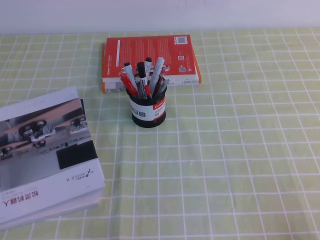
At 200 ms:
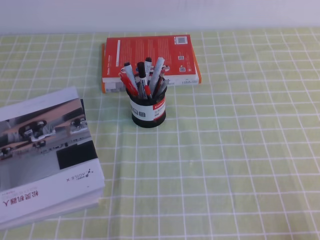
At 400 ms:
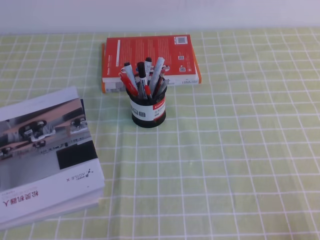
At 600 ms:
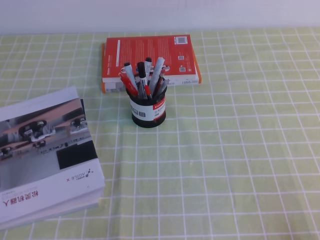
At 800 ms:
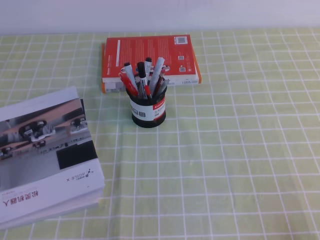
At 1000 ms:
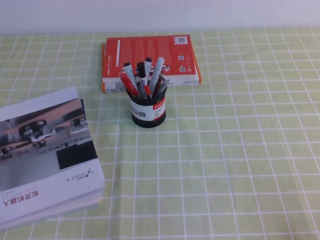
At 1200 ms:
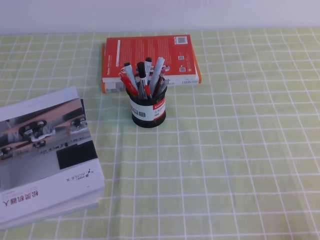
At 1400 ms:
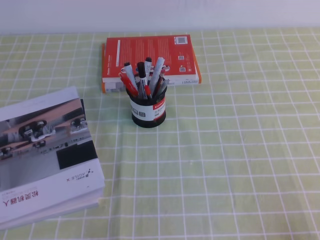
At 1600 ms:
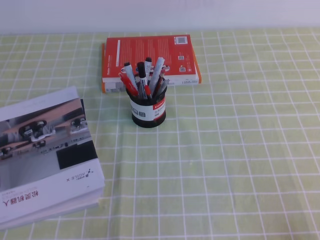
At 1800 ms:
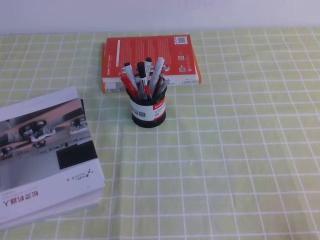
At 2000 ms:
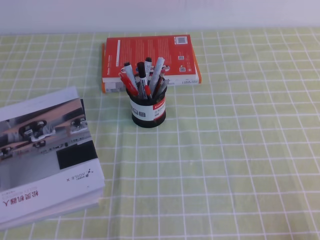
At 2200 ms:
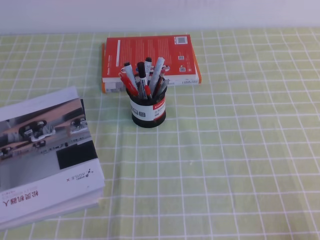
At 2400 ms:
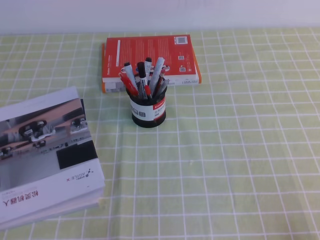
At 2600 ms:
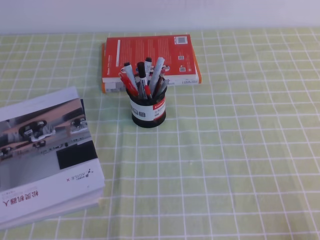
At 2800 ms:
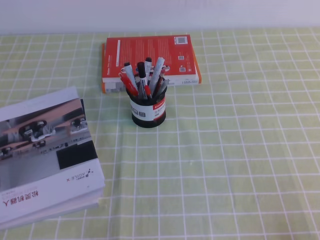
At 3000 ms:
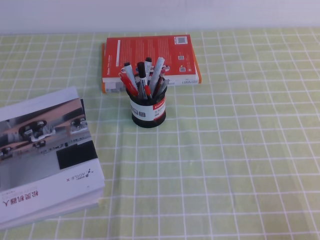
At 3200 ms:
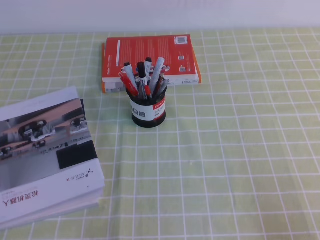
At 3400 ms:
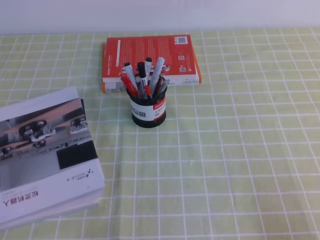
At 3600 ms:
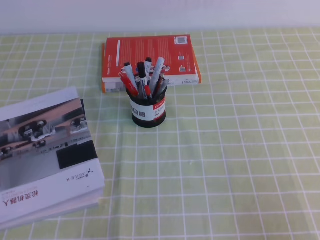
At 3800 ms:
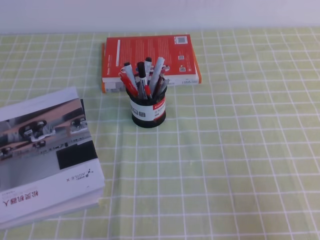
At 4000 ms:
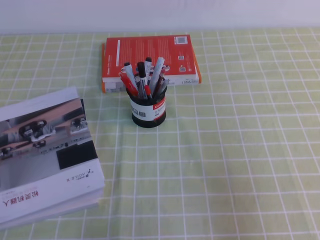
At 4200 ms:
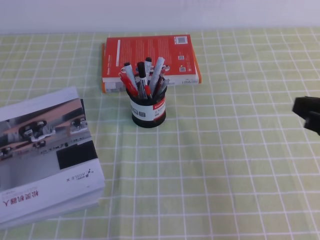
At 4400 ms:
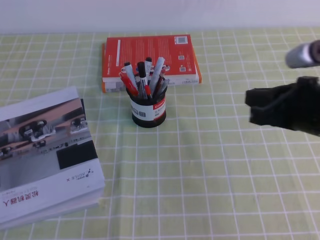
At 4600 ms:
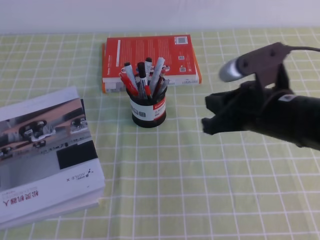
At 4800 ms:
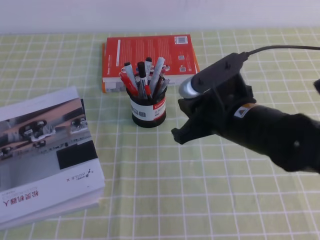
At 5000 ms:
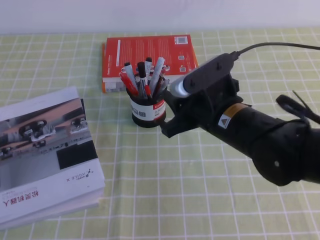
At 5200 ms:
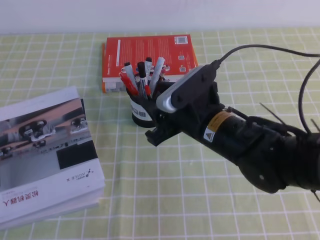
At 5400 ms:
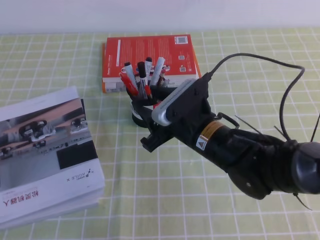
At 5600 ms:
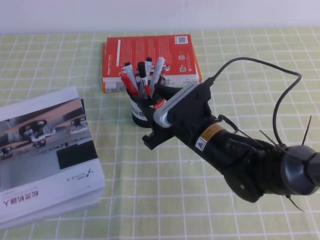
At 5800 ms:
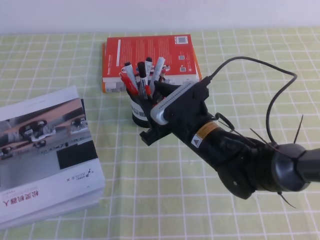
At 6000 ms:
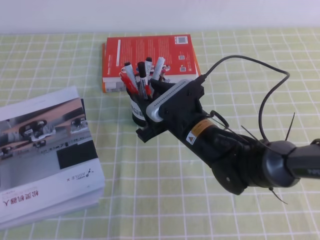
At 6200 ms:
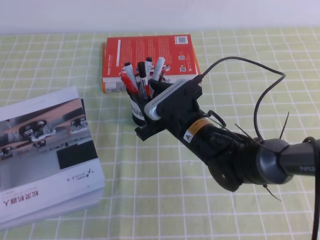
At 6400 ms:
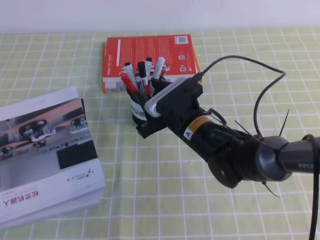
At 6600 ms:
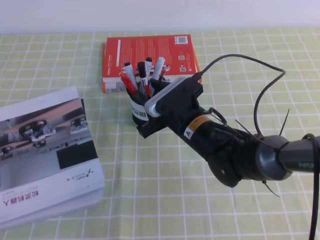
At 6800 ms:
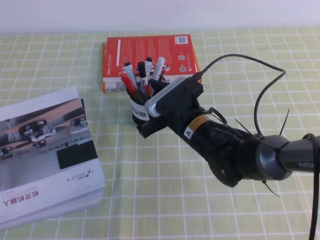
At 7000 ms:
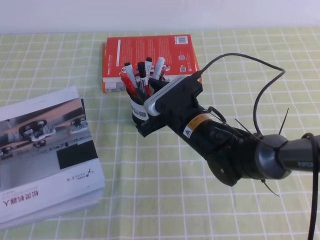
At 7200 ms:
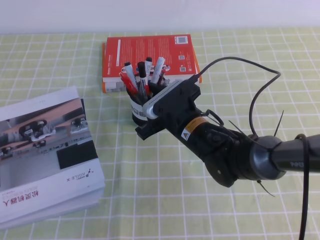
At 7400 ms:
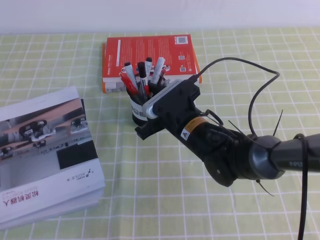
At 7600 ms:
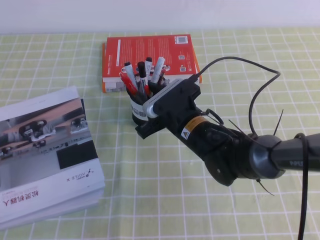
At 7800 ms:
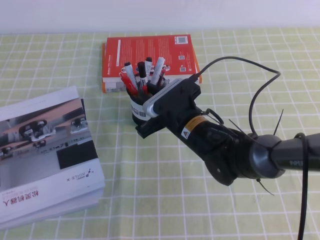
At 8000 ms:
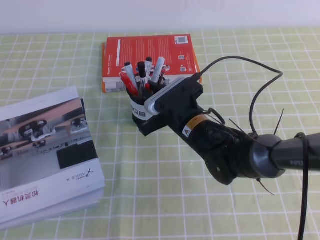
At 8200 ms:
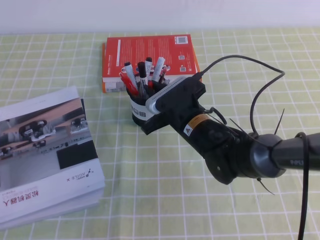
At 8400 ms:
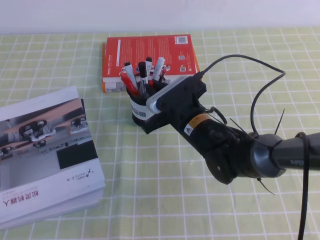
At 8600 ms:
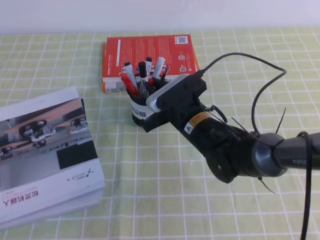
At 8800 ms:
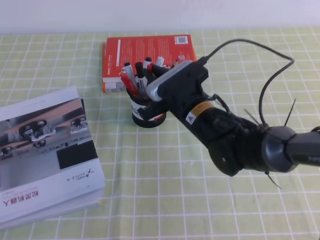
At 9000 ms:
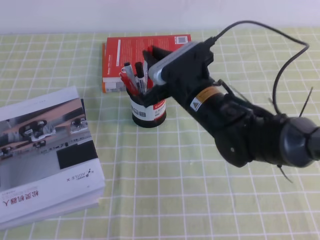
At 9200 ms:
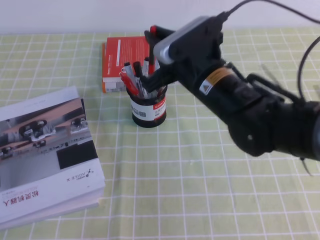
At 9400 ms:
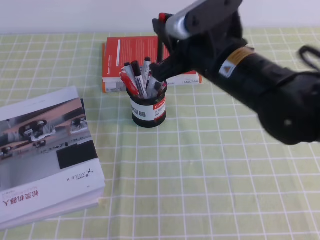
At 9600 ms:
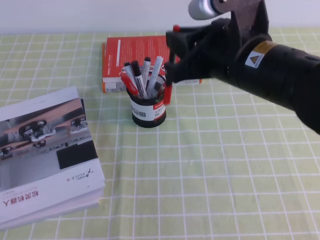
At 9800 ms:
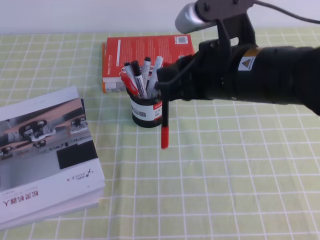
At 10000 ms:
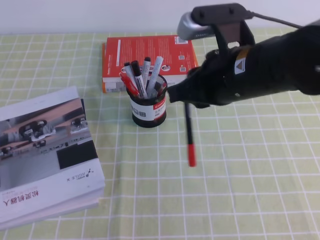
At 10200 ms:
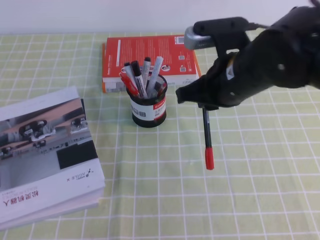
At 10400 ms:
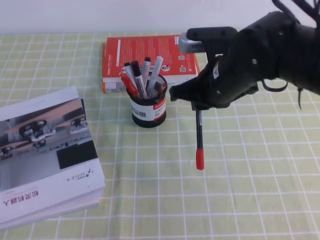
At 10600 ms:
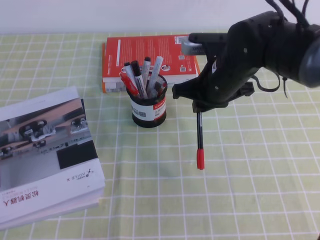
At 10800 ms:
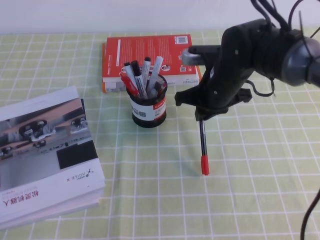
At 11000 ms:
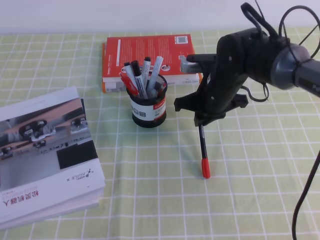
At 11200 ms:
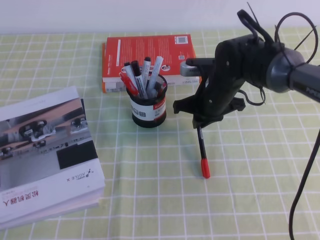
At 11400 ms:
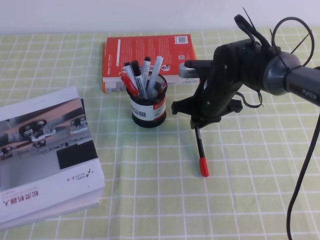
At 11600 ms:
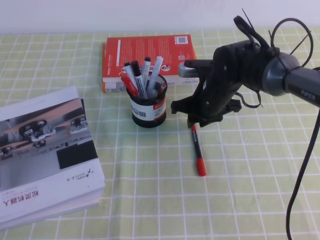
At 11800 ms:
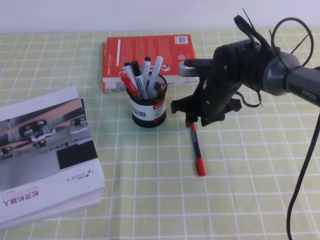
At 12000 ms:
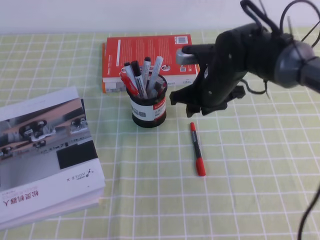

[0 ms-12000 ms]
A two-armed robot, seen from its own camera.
0 ms to 1600 ms: The two grippers keep their place.
3000 ms to 4400 ms: The right gripper shifts approximately 25 cm forward, upward and to the left.
4400 ms to 6000 ms: The right gripper is displaced to the left, downward and forward by approximately 20 cm, and opens.
6000 ms to 7600 ms: The right gripper closes.
7600 ms to 9000 ms: The right gripper heads upward, covering approximately 5 cm, and closes up.
9000 ms to 10400 ms: The right gripper moves upward and to the right, approximately 5 cm.
10400 ms to 12000 ms: The right gripper goes some 10 cm downward and forward, and opens.

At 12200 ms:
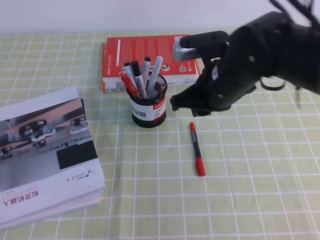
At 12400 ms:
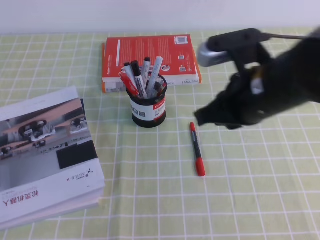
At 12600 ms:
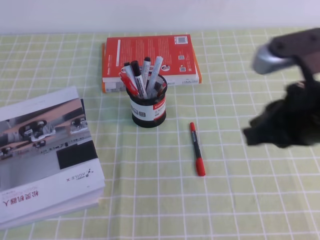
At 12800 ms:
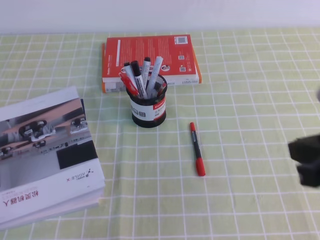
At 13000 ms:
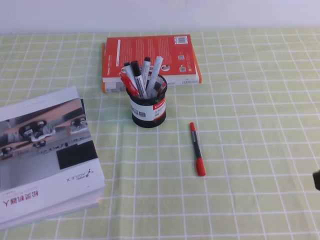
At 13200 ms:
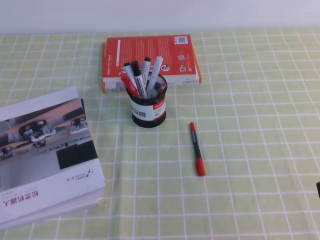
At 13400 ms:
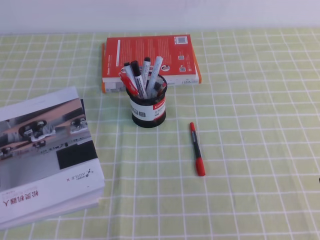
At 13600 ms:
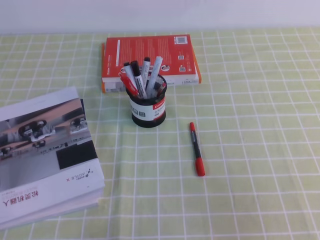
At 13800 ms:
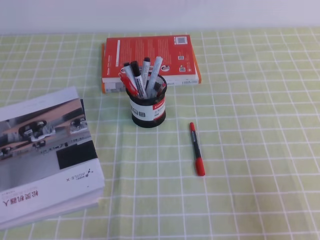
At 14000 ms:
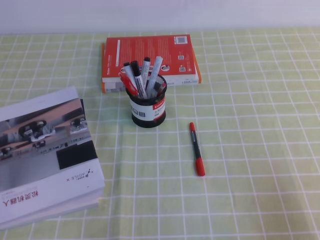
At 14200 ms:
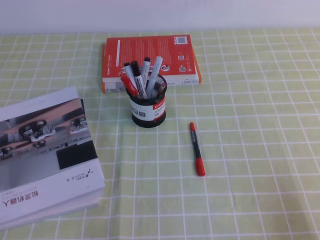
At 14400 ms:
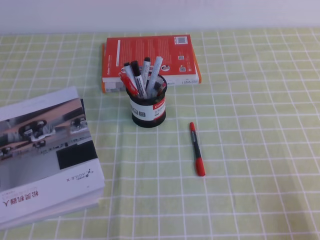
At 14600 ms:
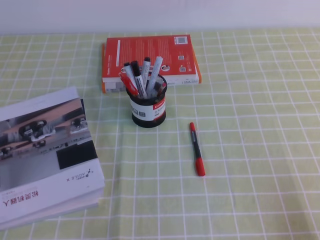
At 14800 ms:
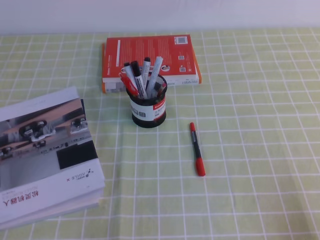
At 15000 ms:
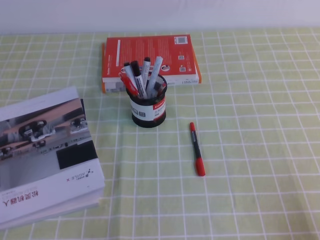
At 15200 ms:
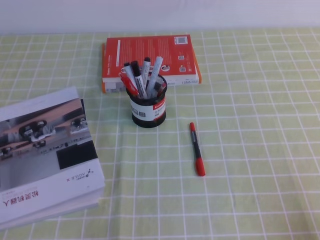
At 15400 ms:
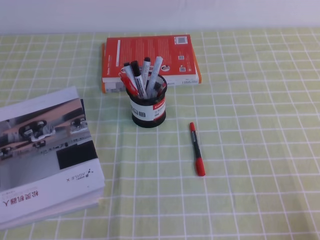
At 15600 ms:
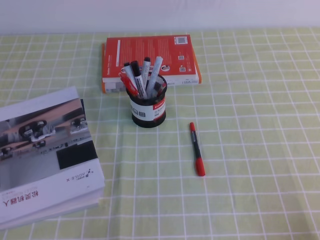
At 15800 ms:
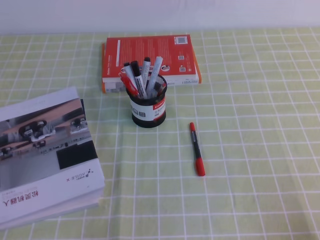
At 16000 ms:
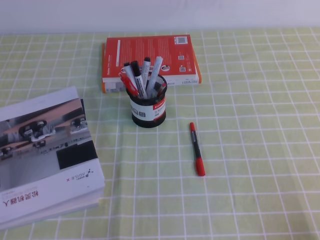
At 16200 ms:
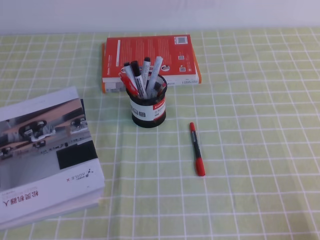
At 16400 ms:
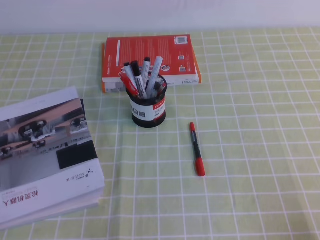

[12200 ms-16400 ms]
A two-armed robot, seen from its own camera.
Step, 12200 ms to 16400 ms: Pick up the pen from the pen holder.
12200 ms to 13600 ms: The right gripper is displaced backward and to the right by some 30 cm.
13600 ms to 15000 ms: The right gripper heads downward, backward and to the right, covering approximately 15 cm.
